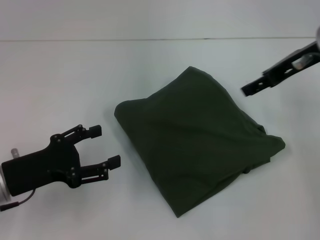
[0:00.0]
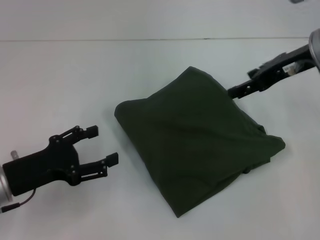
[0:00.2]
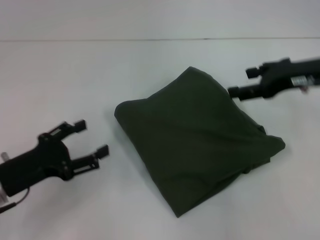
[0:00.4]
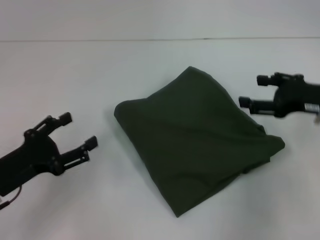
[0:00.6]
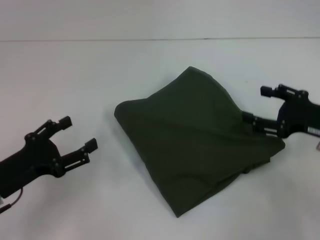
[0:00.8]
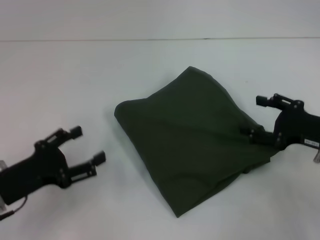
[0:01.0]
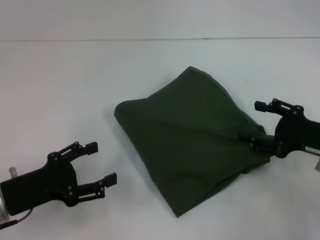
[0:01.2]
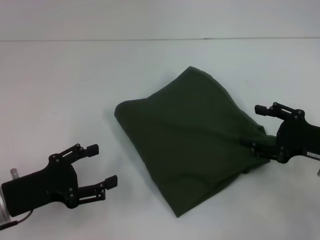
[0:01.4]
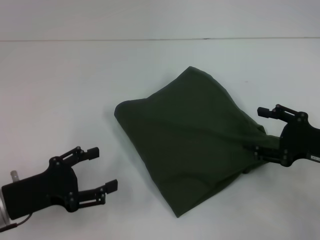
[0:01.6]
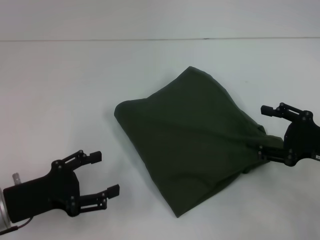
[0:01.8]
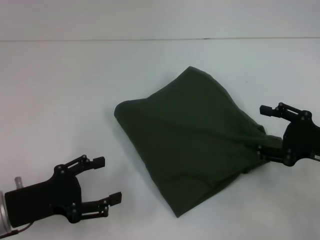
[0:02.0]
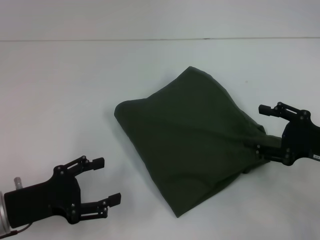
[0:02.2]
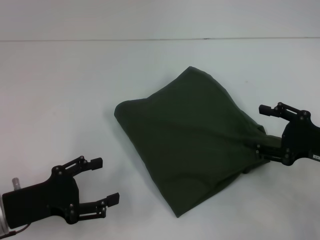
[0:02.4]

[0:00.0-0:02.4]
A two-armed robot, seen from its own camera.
0:00.0 to 0:01.2: The right gripper shifts approximately 20 cm downward, backward and to the right.
0:01.2 to 0:02.4: The grippers stay close to where they were, moving slightly.

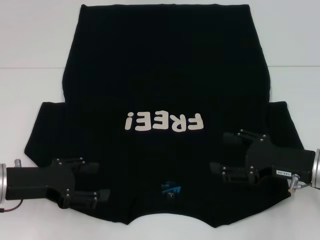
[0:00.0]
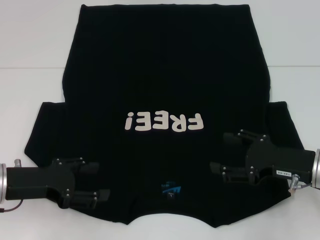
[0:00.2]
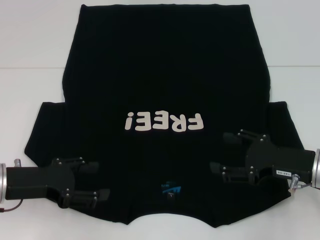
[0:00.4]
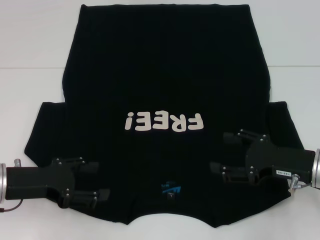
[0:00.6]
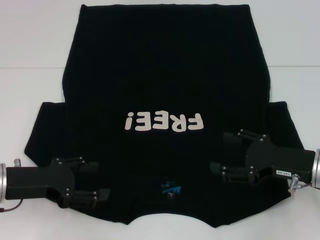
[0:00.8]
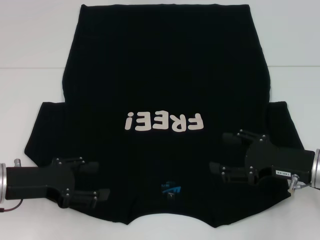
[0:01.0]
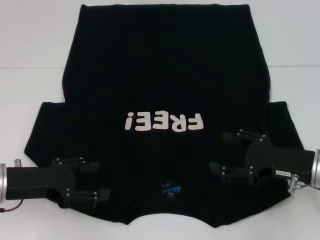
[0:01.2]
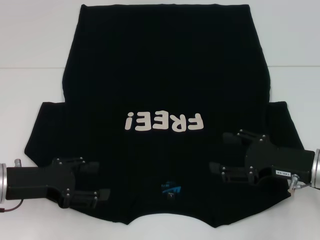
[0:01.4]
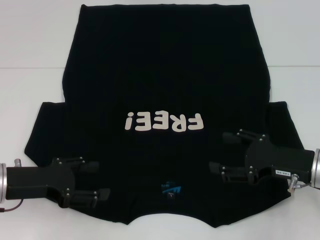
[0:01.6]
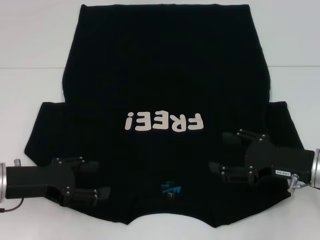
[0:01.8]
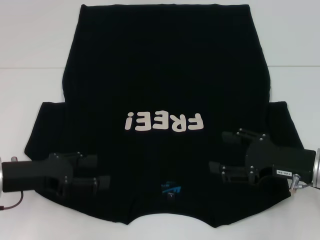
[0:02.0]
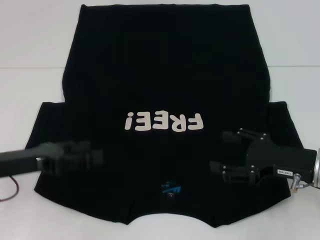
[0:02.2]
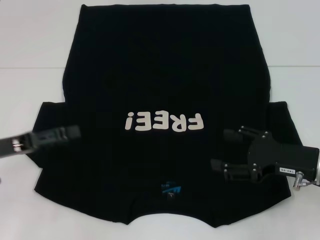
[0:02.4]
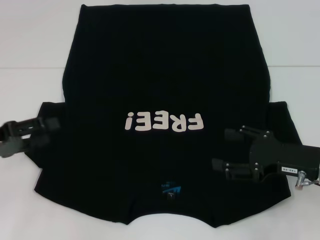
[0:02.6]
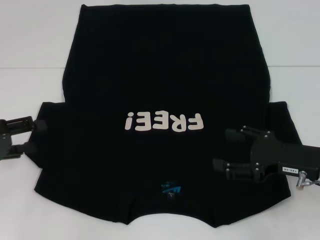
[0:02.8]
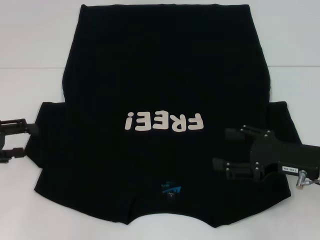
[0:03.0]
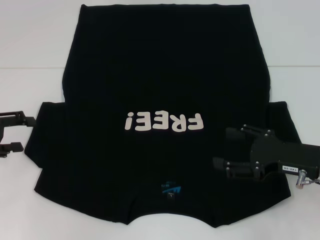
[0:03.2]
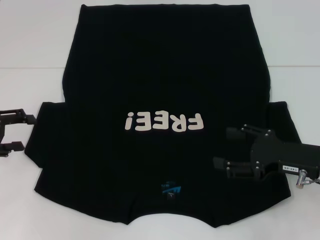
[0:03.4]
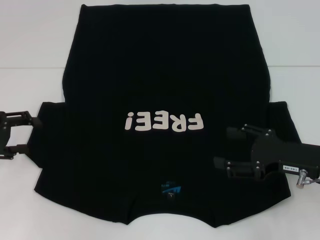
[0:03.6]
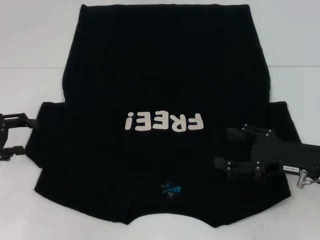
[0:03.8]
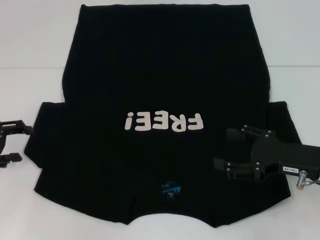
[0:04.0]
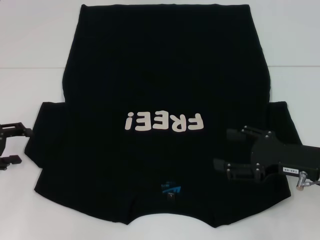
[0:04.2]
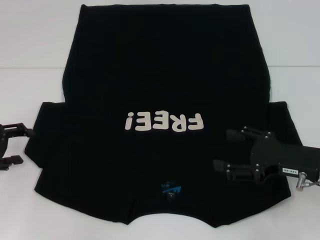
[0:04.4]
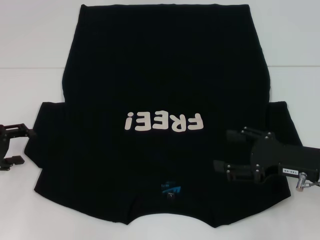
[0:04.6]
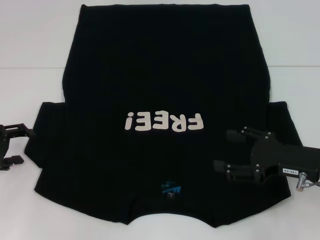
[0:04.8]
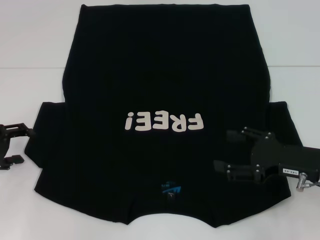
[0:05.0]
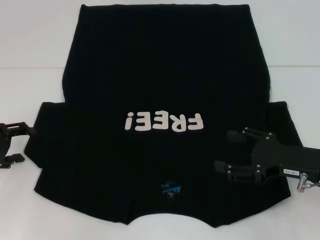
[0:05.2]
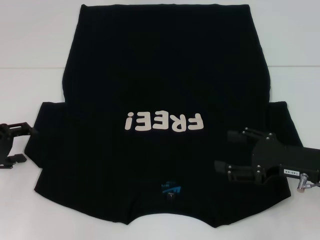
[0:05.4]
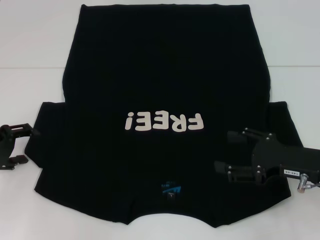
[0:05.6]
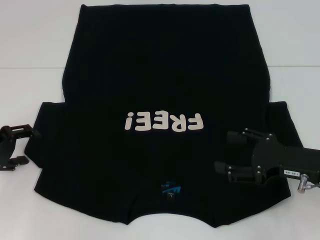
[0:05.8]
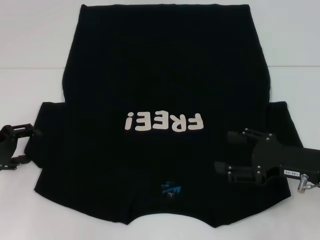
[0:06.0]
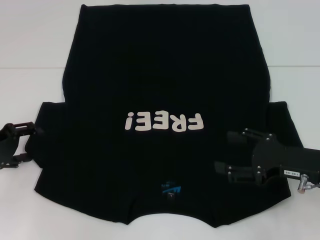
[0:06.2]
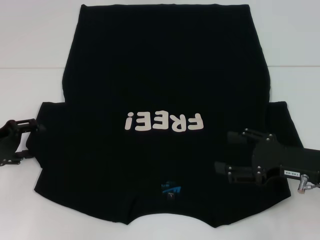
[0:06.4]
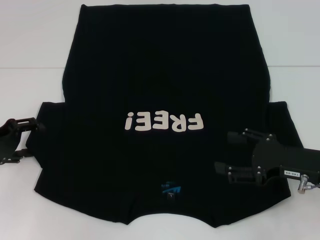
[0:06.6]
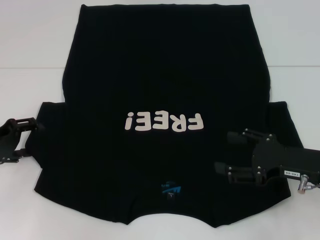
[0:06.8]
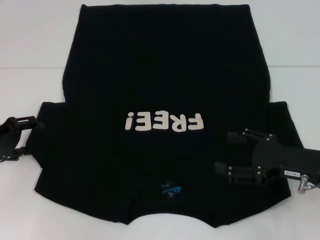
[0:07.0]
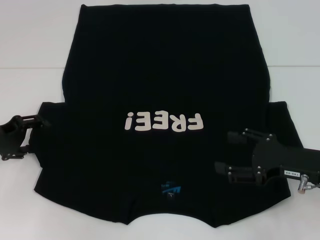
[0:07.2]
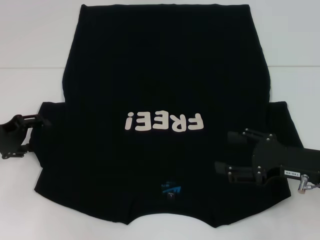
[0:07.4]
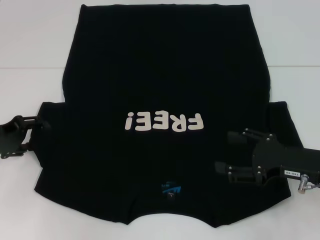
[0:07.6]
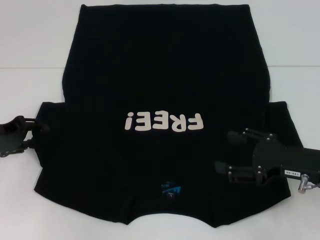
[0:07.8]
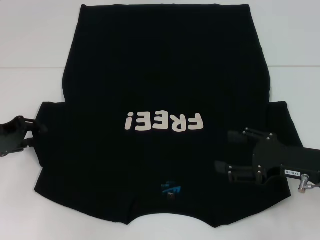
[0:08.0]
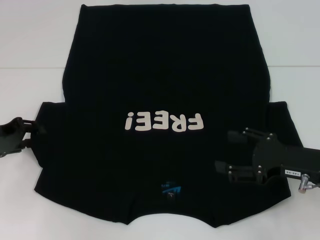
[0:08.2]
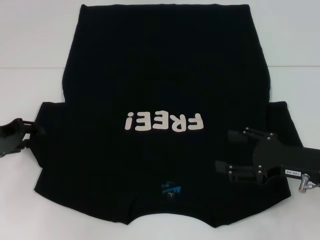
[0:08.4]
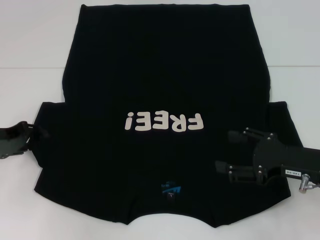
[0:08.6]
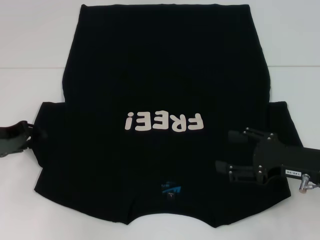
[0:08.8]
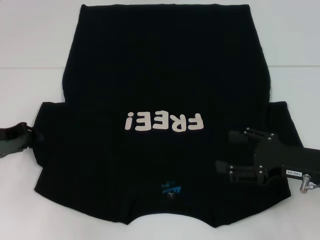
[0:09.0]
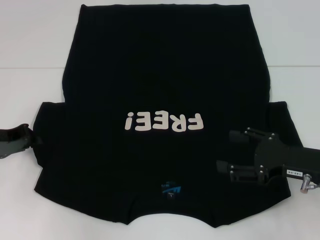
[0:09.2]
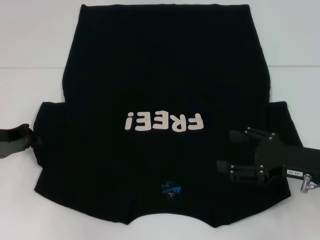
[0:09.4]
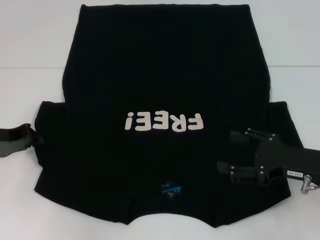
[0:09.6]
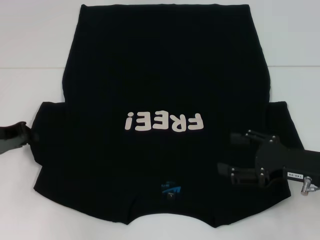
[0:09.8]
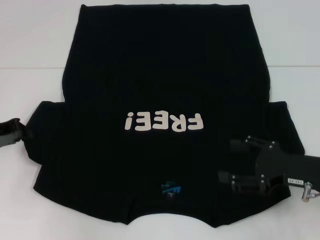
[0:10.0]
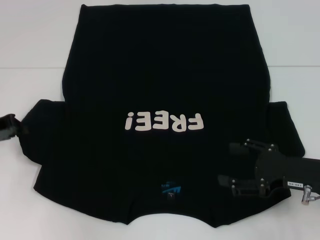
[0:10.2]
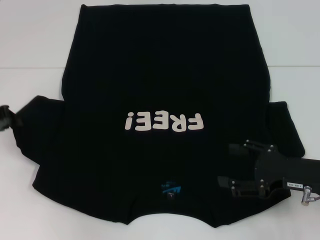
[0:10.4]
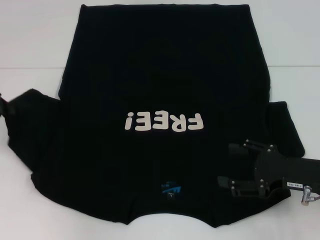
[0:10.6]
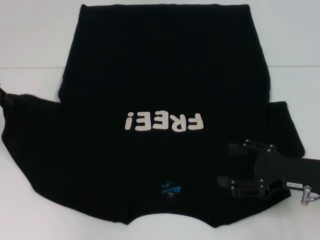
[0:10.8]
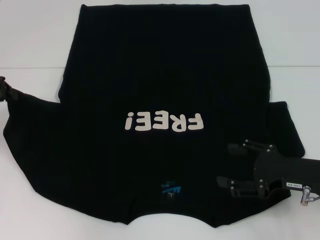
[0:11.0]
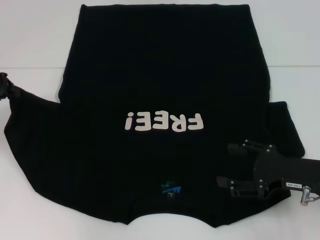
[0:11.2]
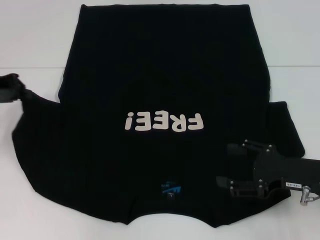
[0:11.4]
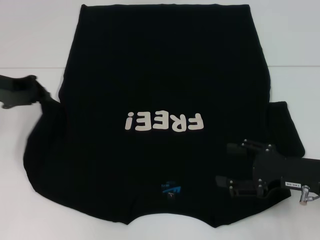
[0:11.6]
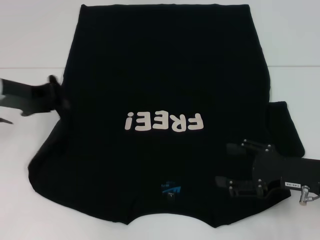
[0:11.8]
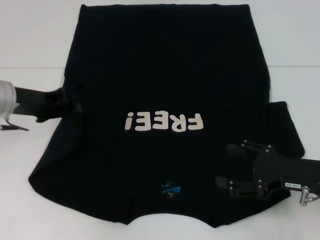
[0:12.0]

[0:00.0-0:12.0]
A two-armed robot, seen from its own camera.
0:00.0 to 0:01.6: The two grippers keep their place.
0:01.6 to 0:03.0: The left gripper moves to the left, about 10 cm.
0:03.0 to 0:07.6: There are only small adjustments of the grippers.
0:07.6 to 0:09.0: The left gripper closes.
0:09.0 to 0:10.4: The left gripper closes its fingers.
0:10.4 to 0:12.0: The left gripper shifts approximately 10 cm to the right.

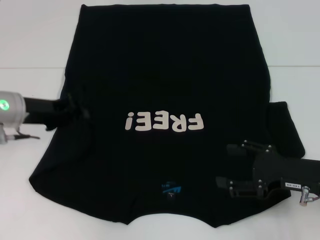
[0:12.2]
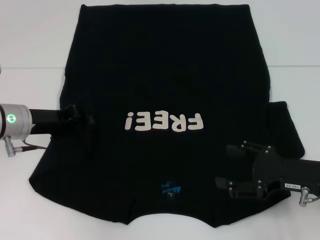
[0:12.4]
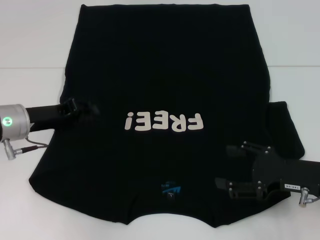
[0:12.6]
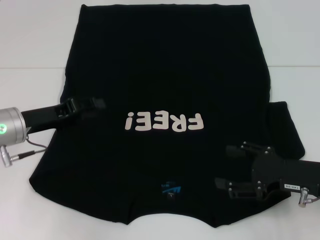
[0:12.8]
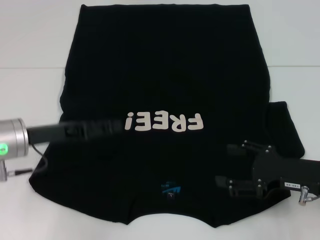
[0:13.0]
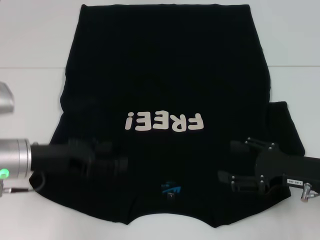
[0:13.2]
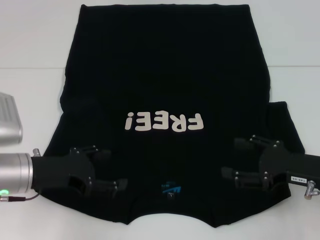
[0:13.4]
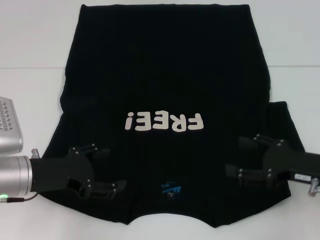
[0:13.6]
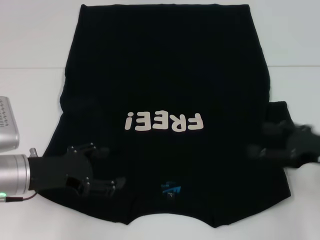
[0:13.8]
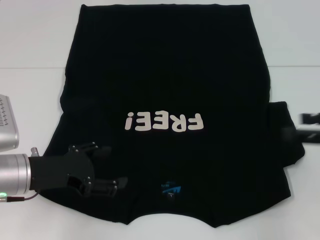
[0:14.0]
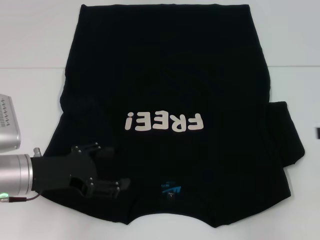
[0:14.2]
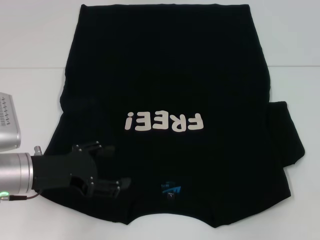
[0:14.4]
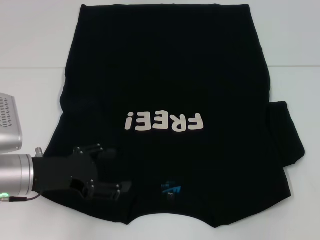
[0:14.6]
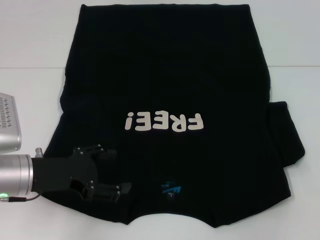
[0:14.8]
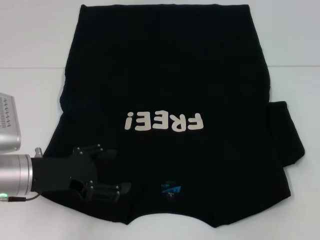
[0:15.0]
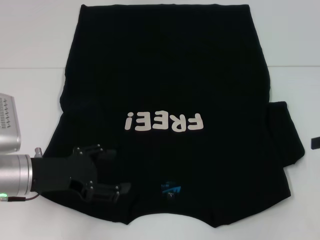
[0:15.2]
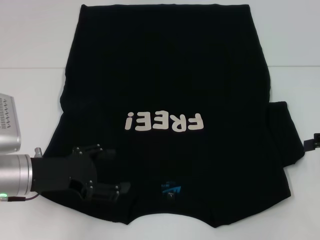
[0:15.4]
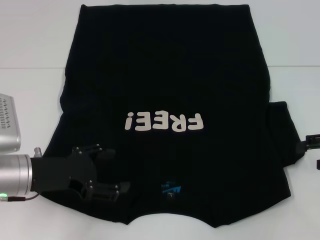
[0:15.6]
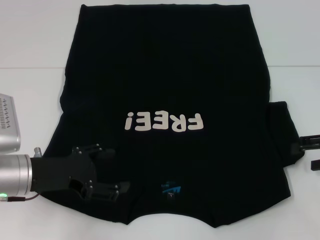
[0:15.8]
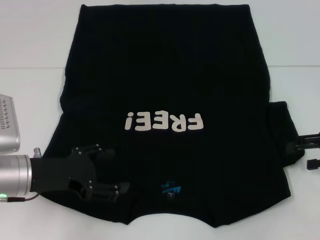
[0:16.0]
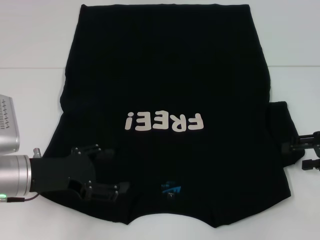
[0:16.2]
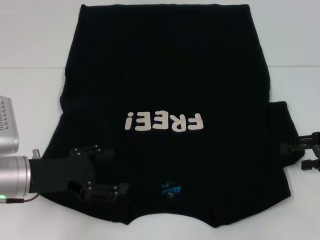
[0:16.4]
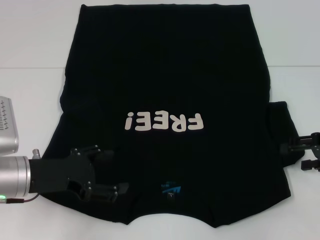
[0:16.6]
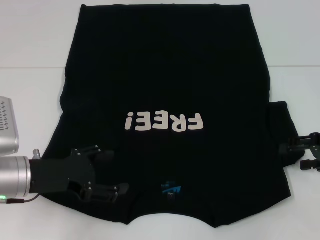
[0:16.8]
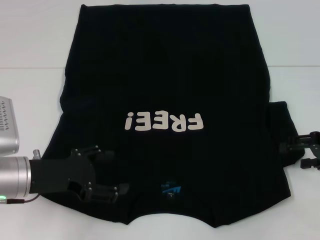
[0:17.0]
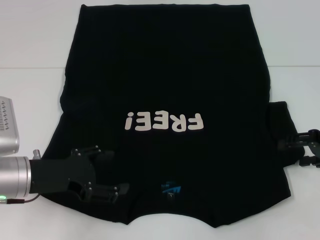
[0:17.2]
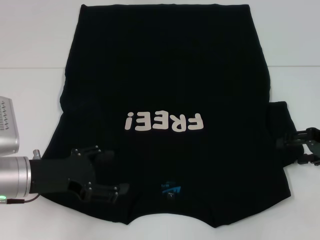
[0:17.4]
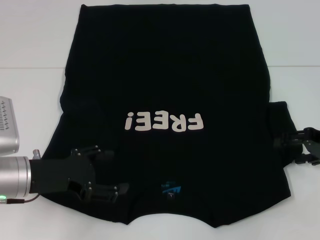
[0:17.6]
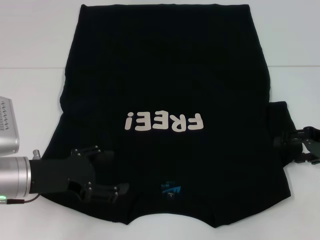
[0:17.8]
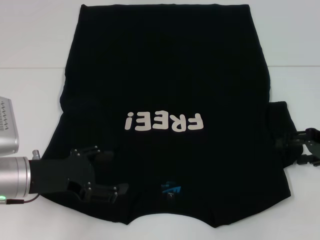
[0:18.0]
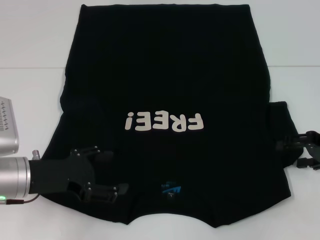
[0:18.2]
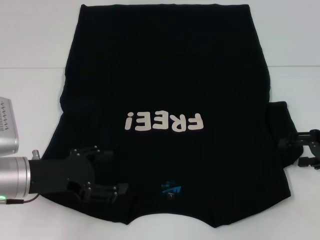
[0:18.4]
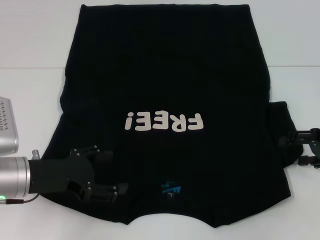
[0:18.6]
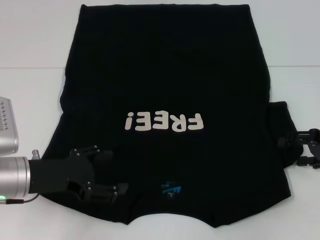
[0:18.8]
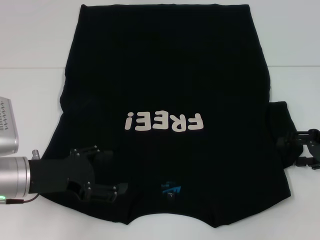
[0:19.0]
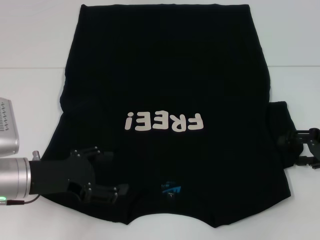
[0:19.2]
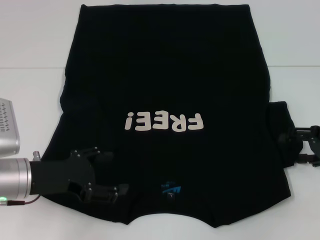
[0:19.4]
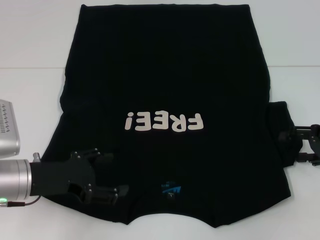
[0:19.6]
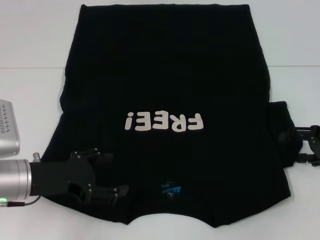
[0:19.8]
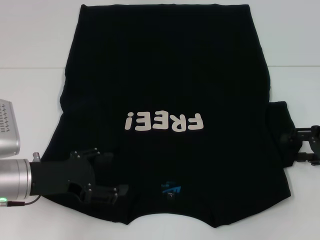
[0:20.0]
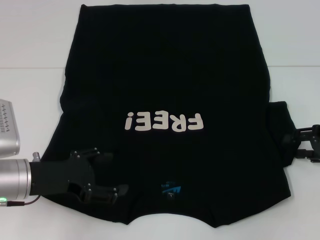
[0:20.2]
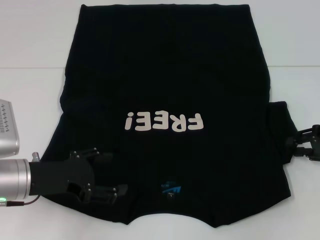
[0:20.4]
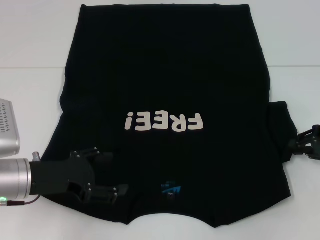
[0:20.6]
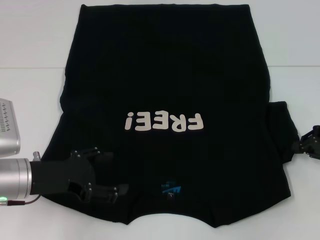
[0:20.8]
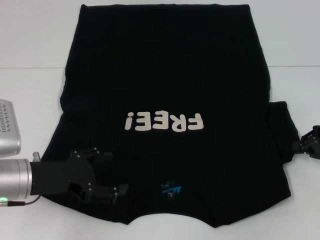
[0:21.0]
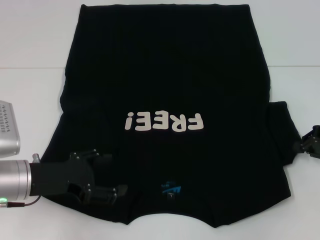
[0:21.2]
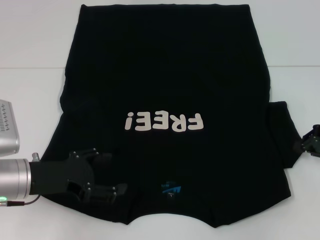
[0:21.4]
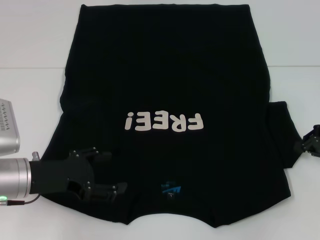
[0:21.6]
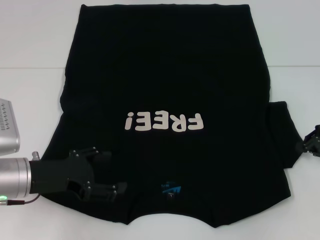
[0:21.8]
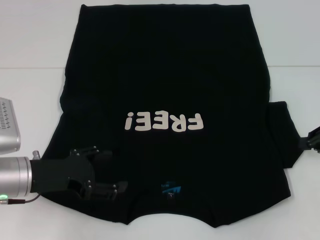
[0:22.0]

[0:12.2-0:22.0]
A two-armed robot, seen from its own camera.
0:12.2 to 0:13.6: The left gripper shifts approximately 10 cm backward, and opens up.
0:13.6 to 0:15.0: The right gripper is displaced to the right and upward by about 15 cm.
0:15.0 to 0:16.4: The right gripper heads downward, covering some 5 cm.
0:16.4 to 0:19.2: There are only small adjustments of the grippers.
0:19.2 to 0:20.6: The right gripper closes.
0:20.6 to 0:22.0: The right gripper closes up.
